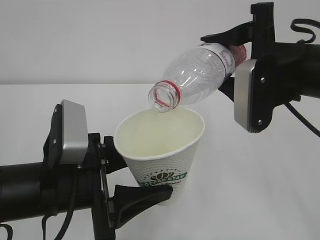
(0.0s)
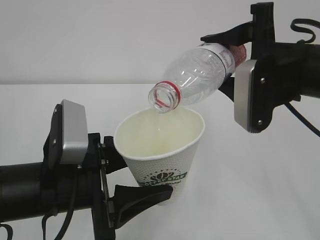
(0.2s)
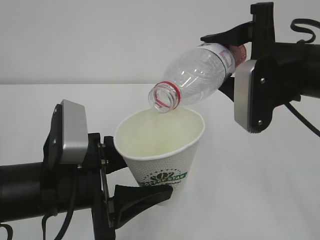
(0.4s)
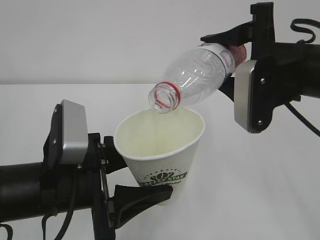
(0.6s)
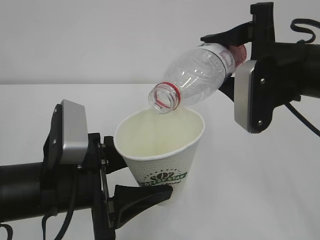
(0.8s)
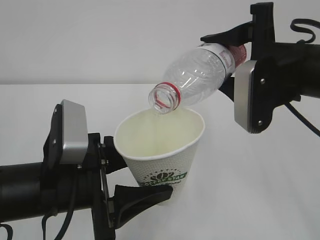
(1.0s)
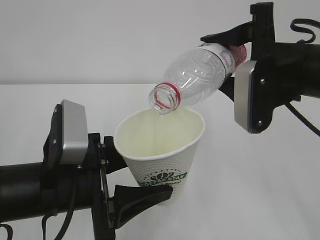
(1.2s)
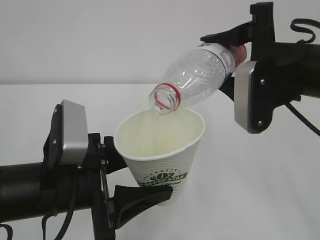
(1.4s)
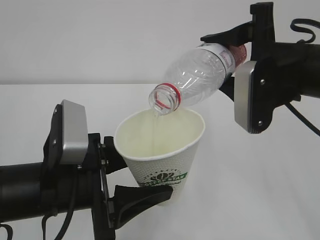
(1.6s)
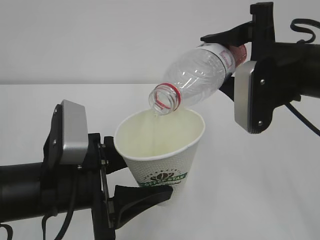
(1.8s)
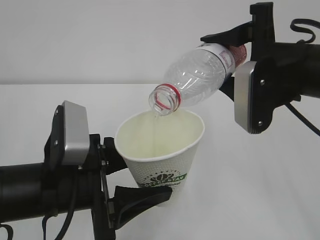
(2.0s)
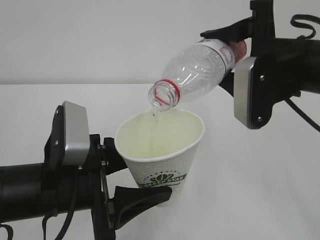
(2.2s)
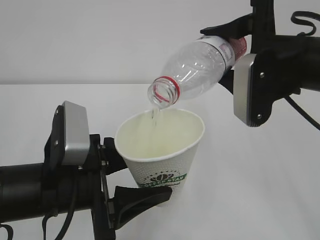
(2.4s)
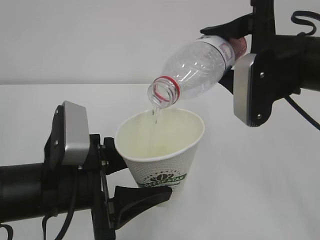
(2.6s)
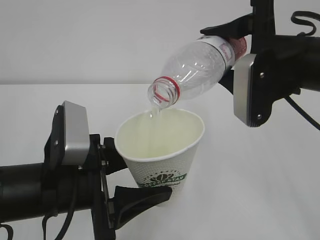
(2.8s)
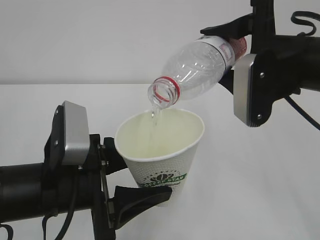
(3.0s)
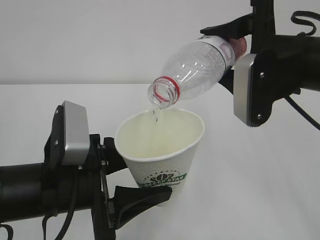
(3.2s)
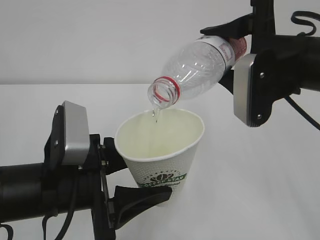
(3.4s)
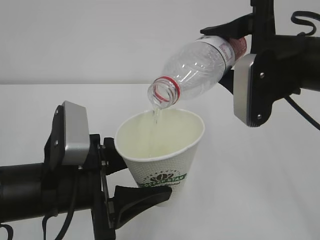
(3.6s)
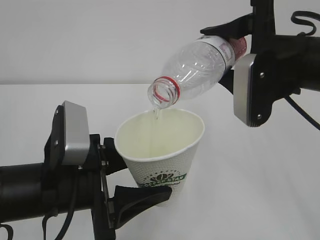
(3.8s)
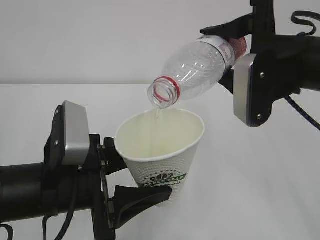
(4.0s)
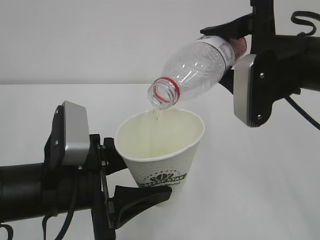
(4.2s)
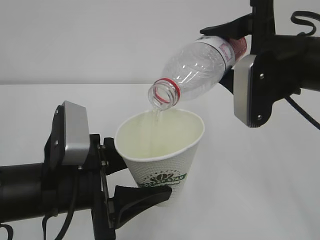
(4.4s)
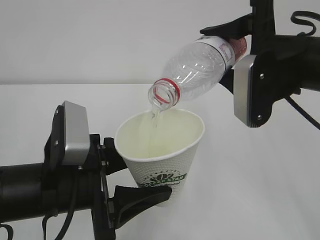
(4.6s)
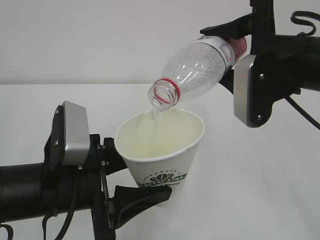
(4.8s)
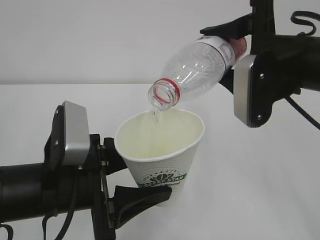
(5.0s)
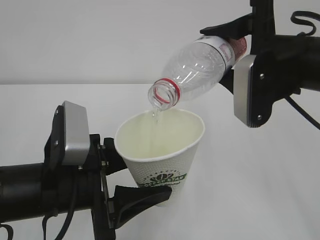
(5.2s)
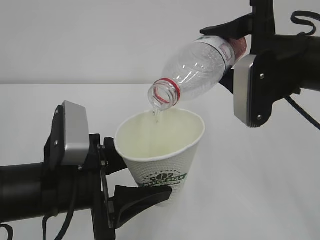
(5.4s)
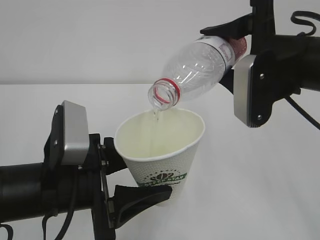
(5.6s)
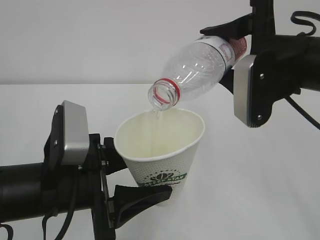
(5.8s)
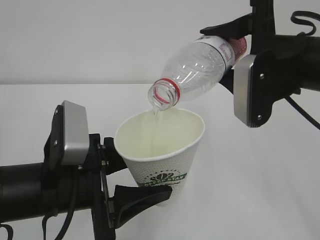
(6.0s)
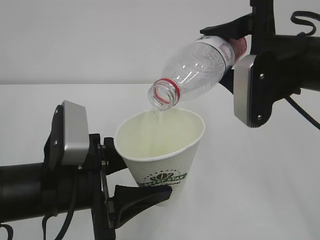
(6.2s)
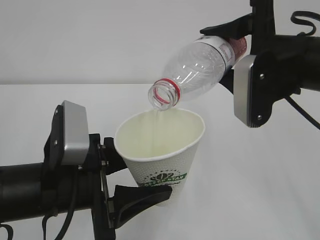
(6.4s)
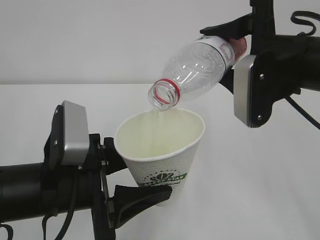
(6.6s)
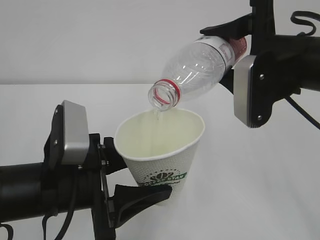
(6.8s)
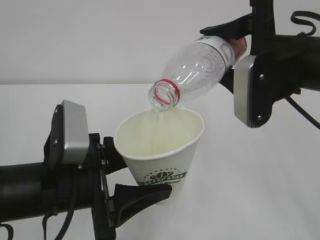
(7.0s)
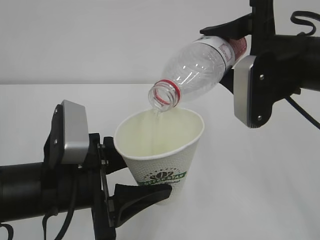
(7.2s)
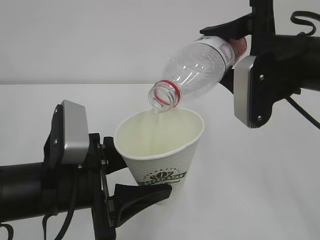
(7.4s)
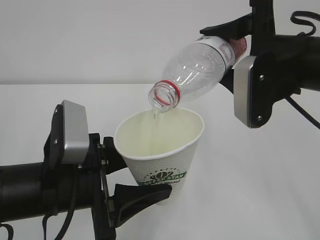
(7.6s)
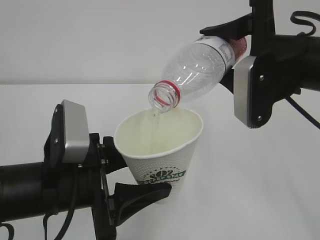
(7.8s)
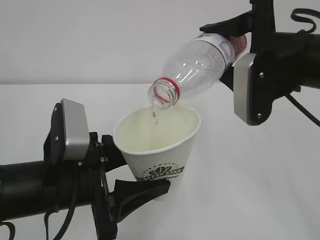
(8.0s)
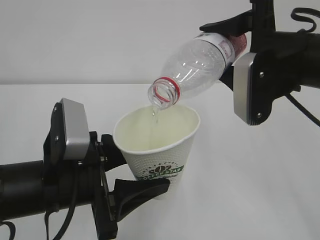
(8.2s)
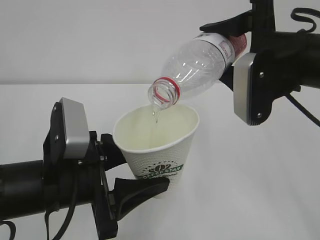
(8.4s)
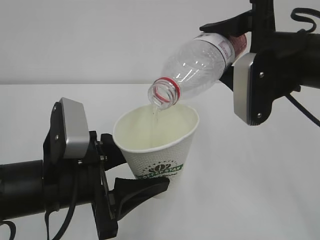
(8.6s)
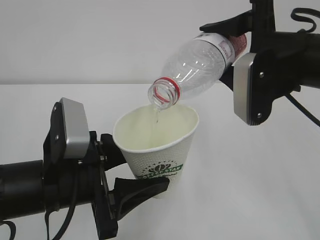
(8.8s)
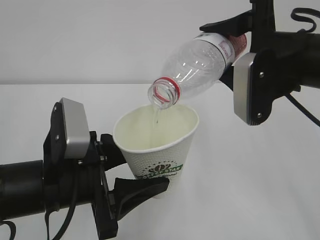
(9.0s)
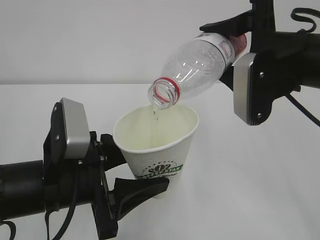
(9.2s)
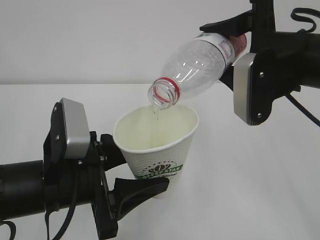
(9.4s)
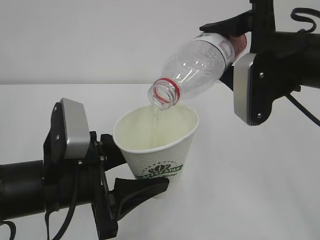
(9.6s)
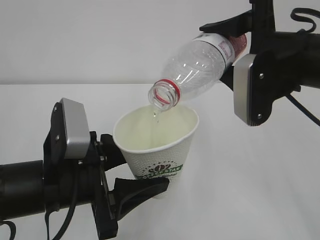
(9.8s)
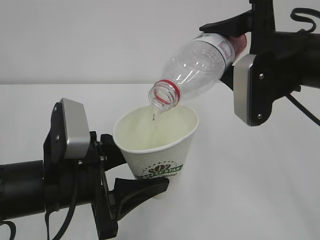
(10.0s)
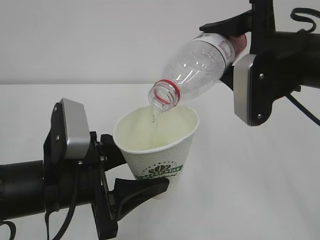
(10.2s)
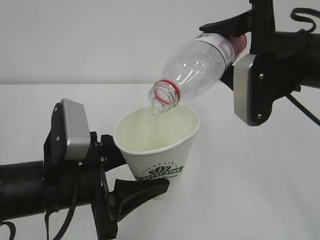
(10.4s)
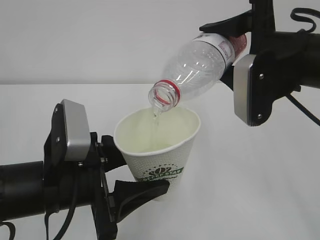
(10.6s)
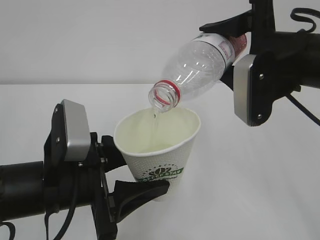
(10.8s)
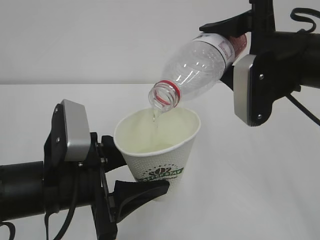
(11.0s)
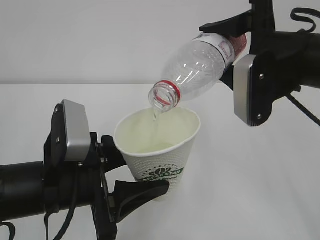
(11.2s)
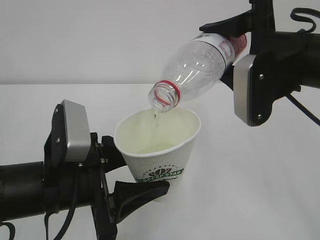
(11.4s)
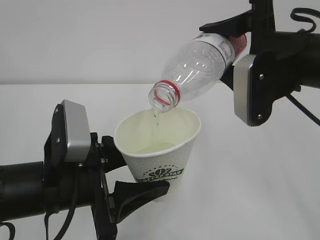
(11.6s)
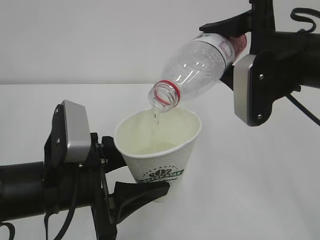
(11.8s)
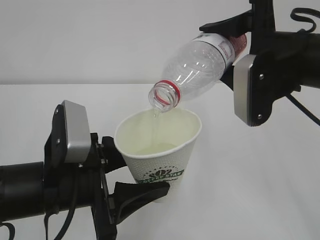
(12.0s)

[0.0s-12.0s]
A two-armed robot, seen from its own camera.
0.0s to 9.0s: The two grippers keep their place.
9.0s to 12.0s: Neither gripper changes place.

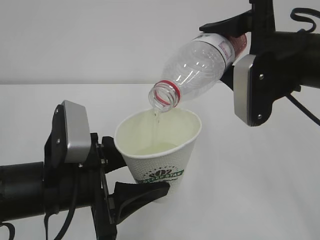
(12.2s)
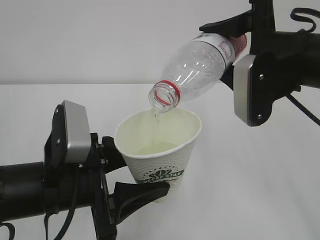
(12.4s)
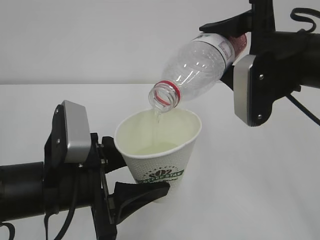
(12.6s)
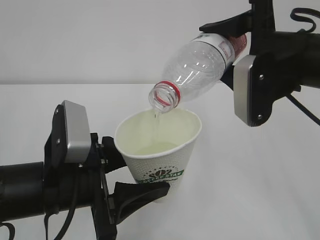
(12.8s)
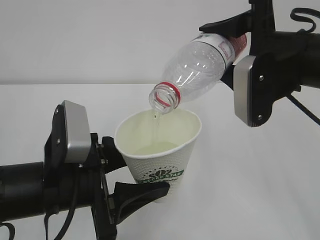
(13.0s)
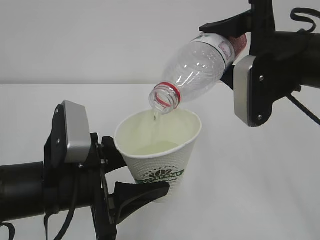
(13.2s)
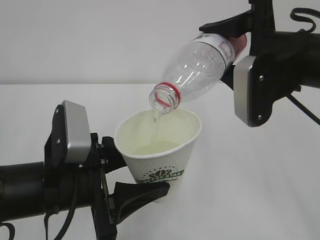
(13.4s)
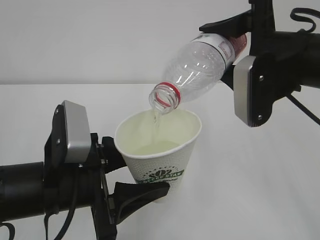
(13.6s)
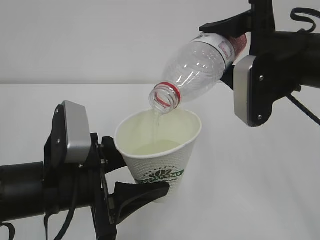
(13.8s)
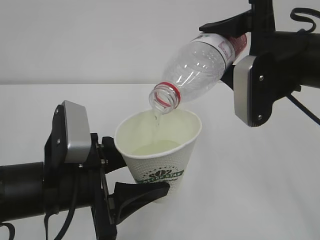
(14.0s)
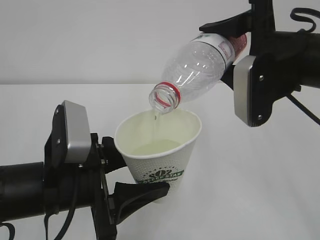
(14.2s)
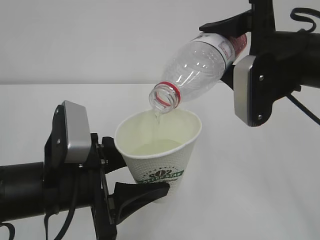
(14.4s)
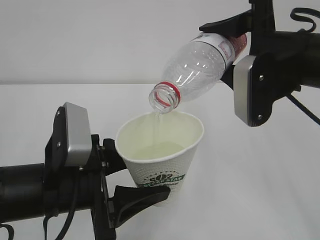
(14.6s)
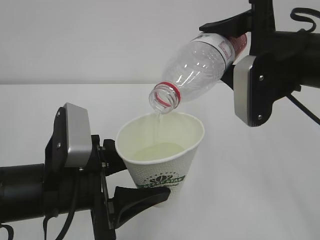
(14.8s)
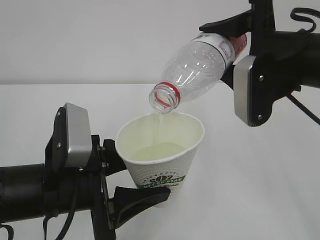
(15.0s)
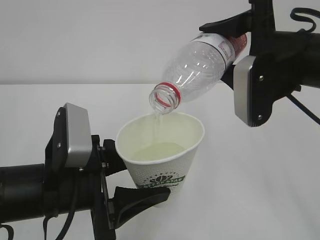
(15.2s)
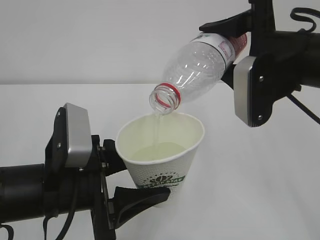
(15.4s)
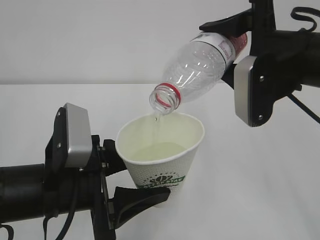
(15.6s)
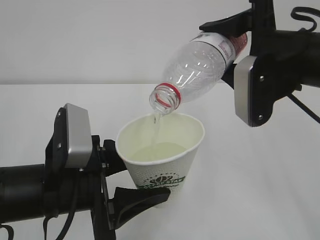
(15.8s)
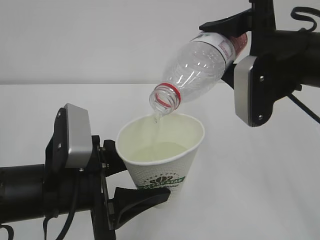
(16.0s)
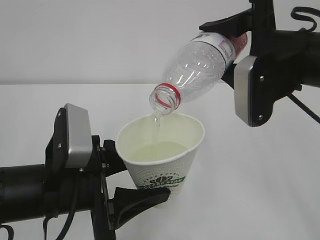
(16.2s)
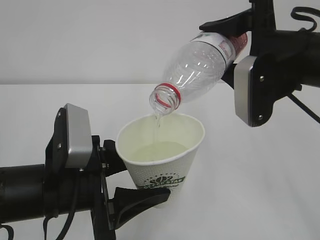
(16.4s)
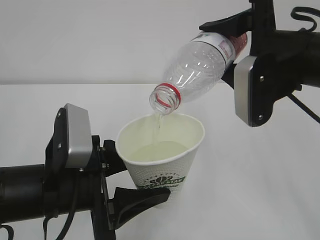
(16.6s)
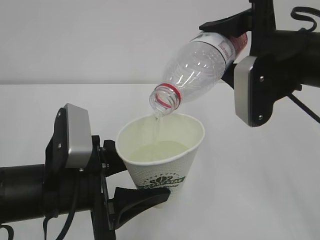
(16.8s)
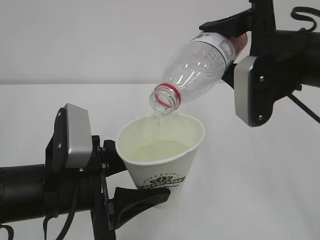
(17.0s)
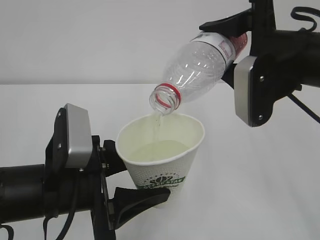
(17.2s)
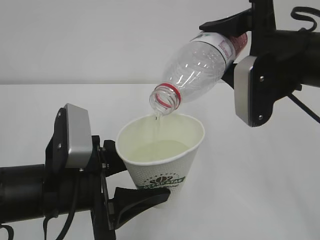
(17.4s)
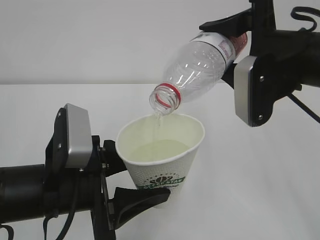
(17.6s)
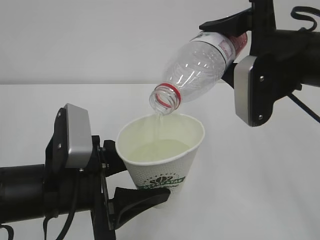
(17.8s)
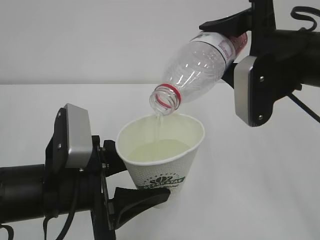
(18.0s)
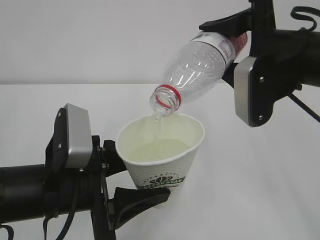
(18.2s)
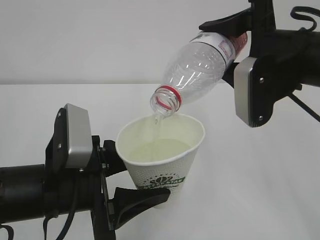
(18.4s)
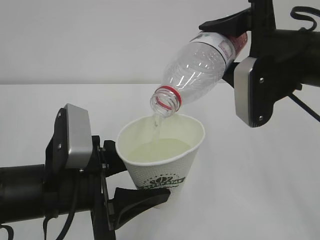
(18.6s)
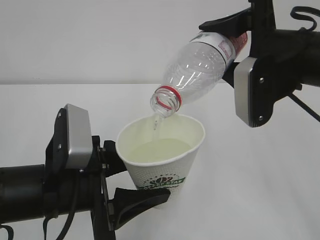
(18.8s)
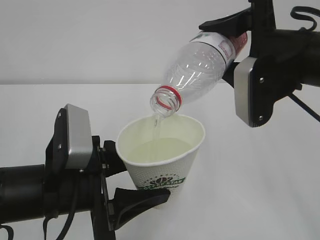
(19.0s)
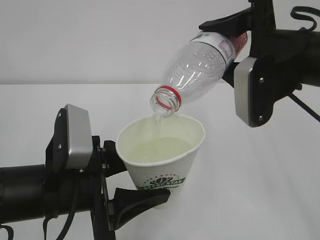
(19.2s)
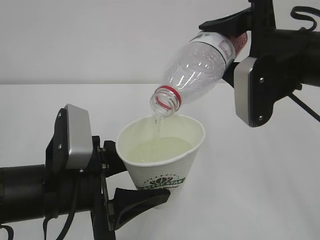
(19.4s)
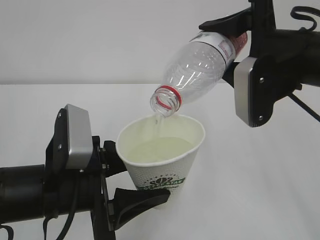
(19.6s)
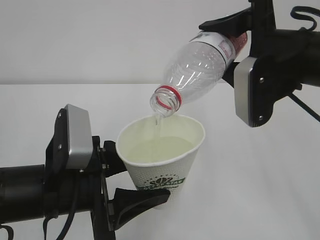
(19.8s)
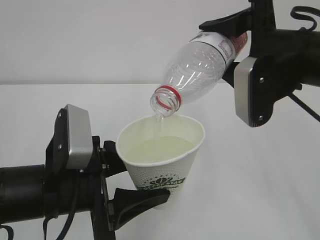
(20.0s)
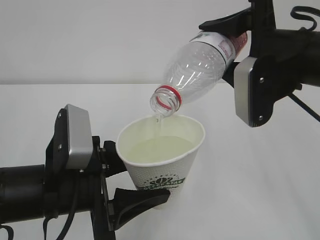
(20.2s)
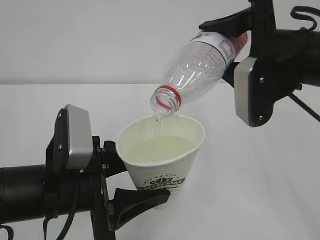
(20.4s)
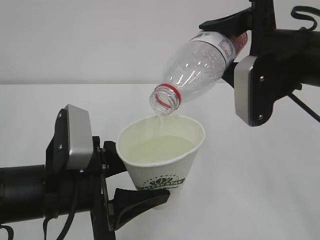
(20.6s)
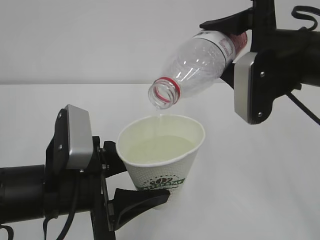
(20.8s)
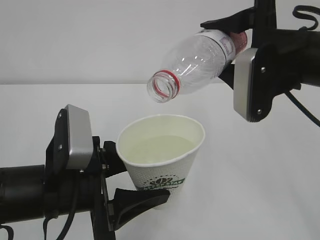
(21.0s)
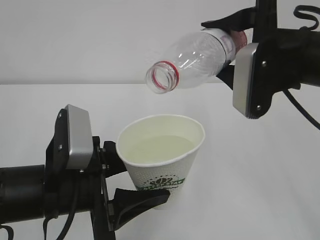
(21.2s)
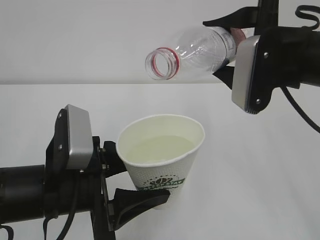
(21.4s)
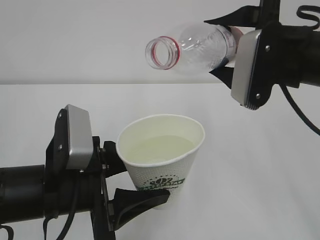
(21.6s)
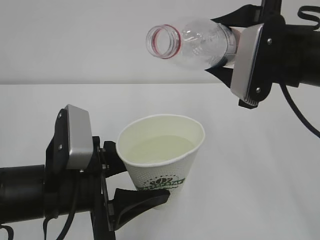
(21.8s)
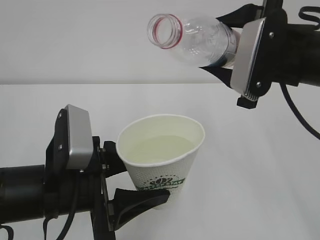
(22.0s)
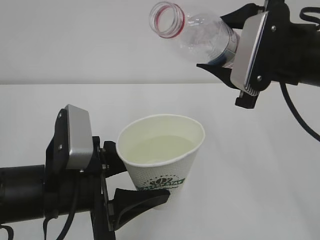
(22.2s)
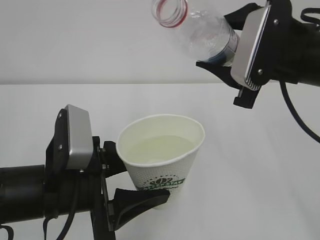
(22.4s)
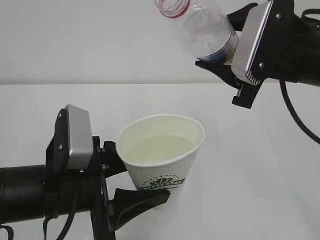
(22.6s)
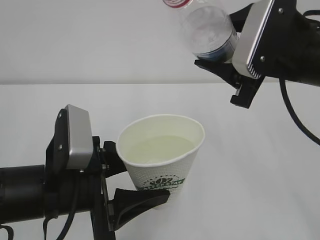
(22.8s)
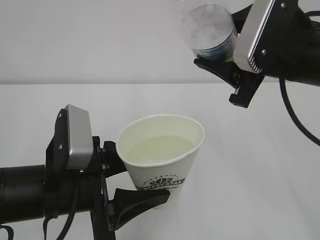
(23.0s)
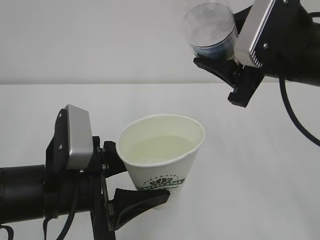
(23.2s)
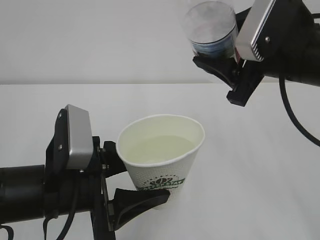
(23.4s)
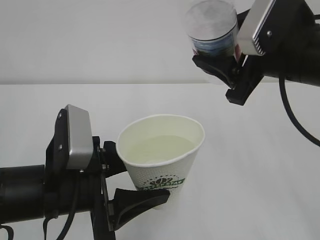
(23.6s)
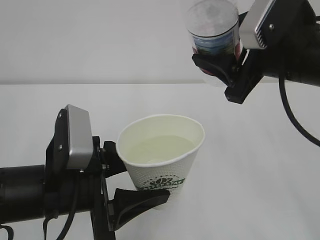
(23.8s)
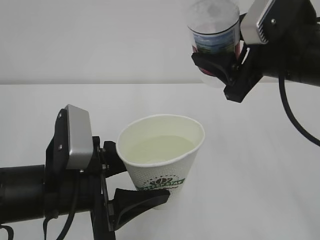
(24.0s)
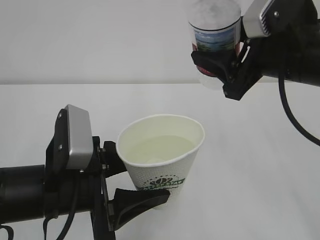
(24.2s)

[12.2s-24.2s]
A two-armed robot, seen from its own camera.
12.2s to 19.8s: Both grippers stay about where they are.
19.8s to 21.2s: The grippers make only small movements.
